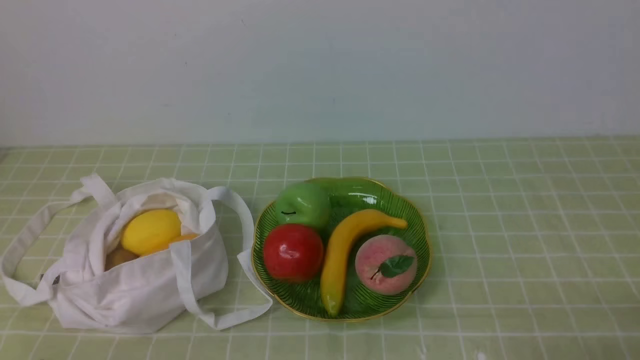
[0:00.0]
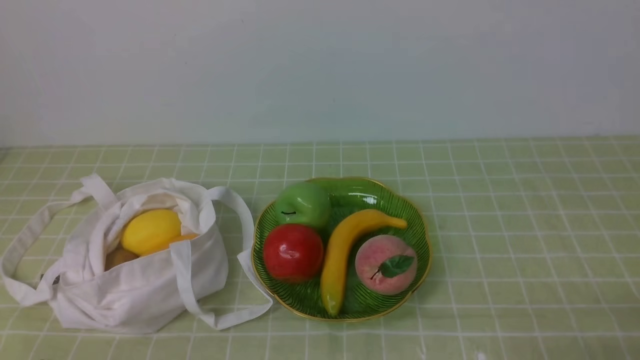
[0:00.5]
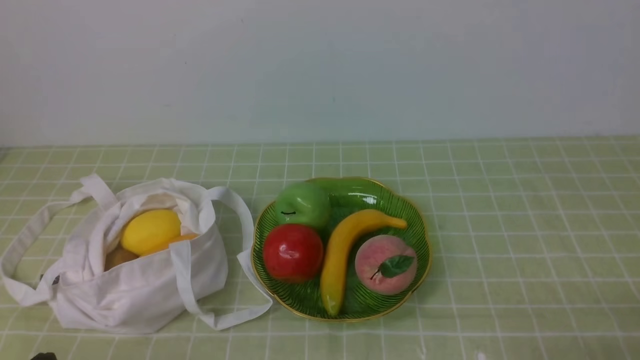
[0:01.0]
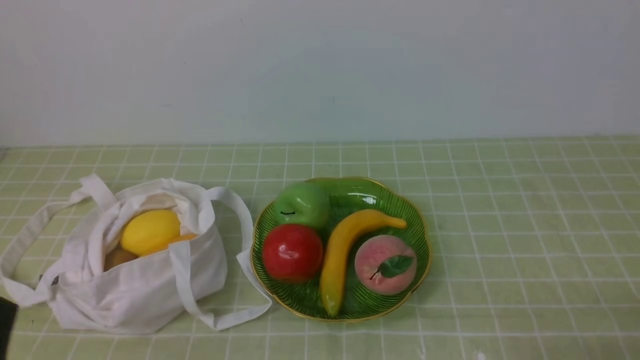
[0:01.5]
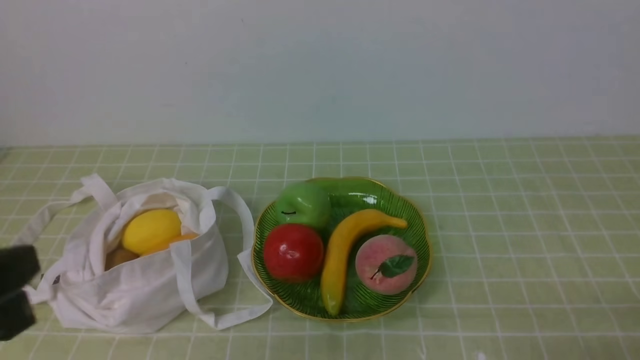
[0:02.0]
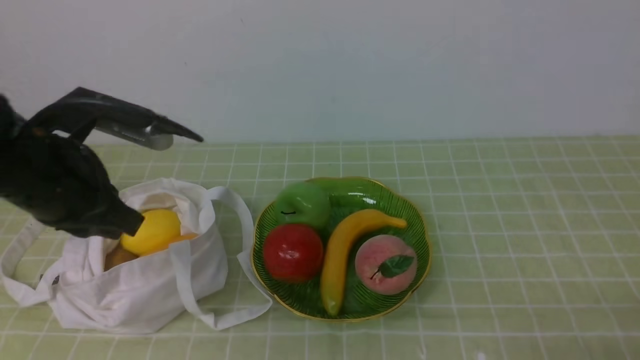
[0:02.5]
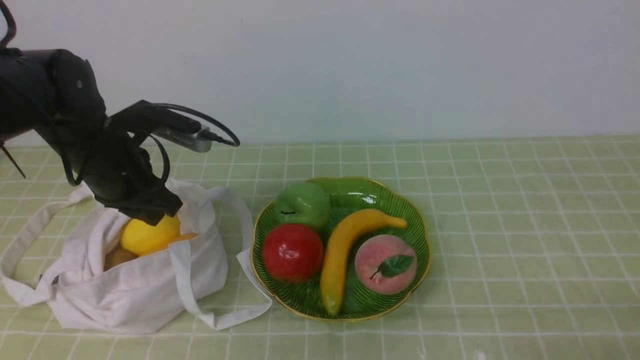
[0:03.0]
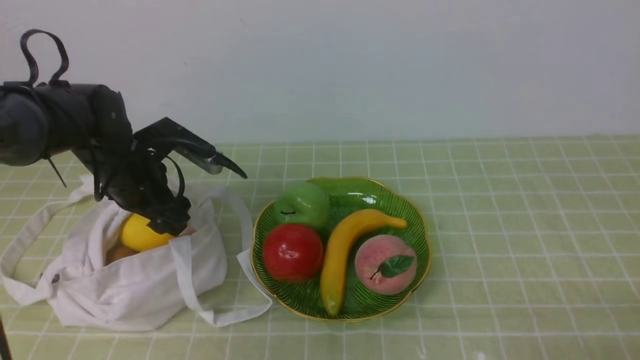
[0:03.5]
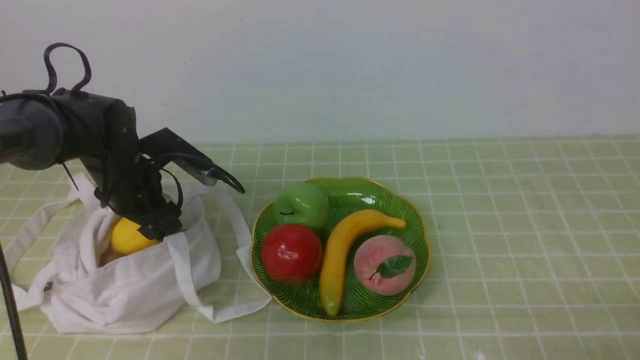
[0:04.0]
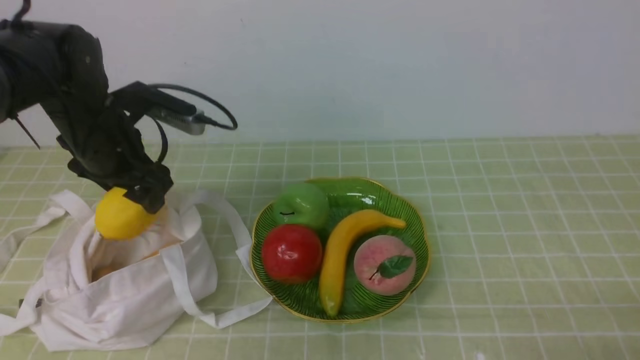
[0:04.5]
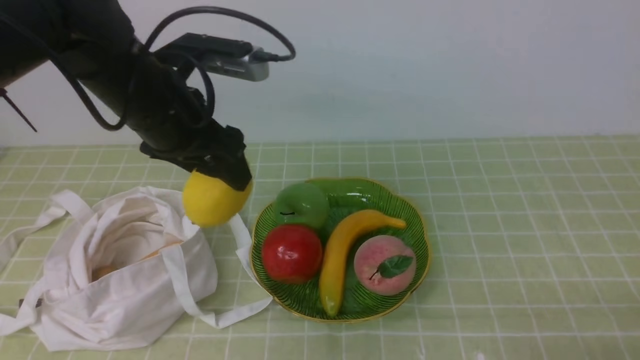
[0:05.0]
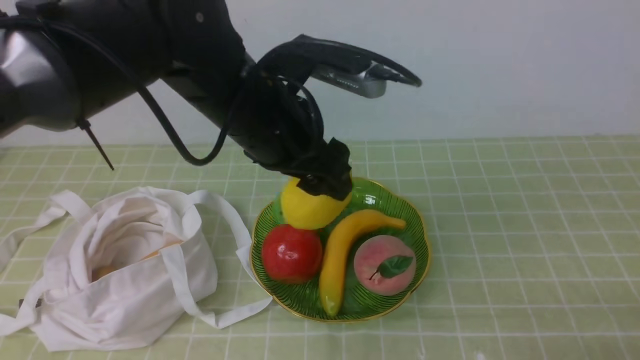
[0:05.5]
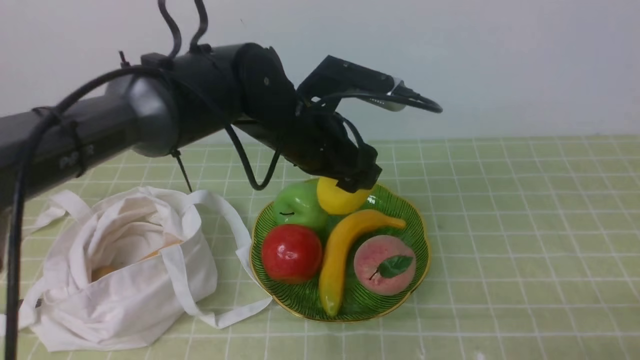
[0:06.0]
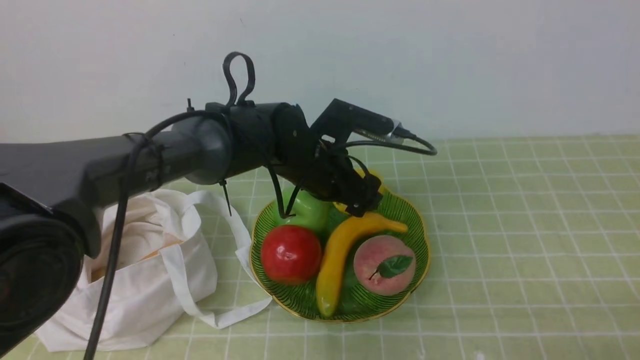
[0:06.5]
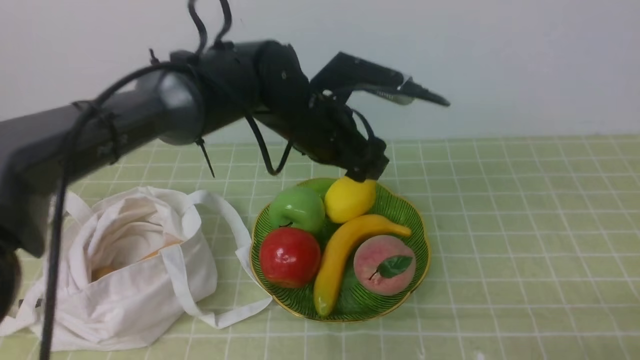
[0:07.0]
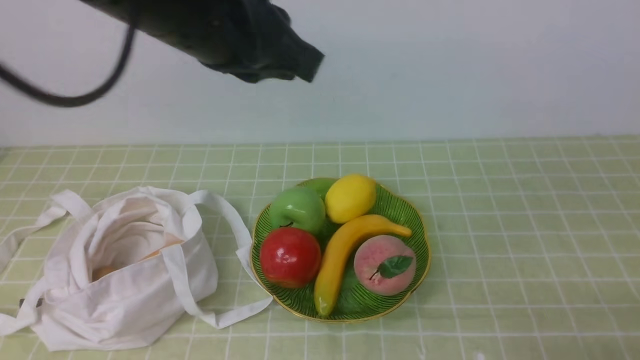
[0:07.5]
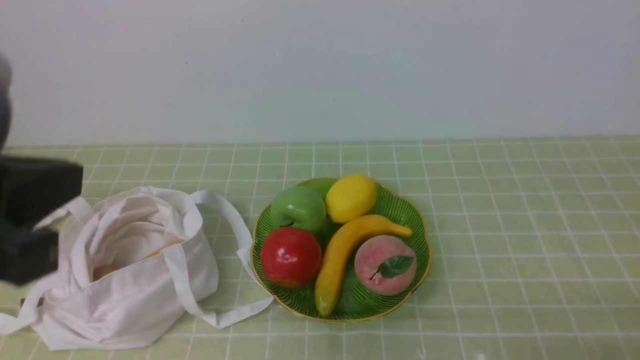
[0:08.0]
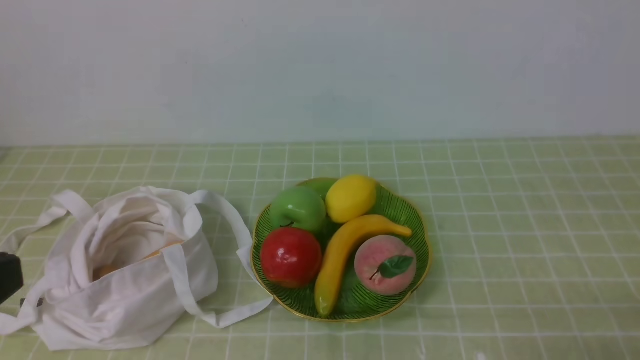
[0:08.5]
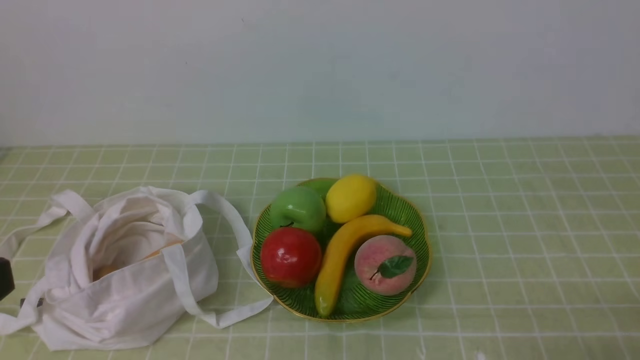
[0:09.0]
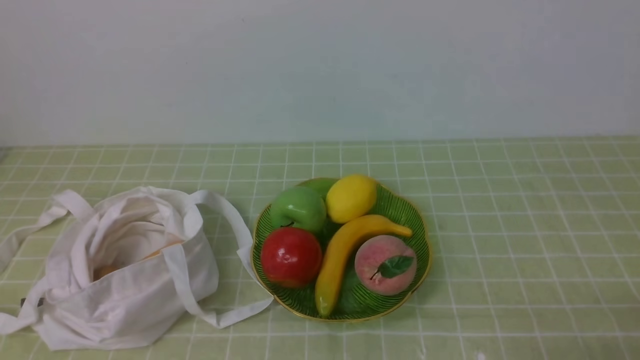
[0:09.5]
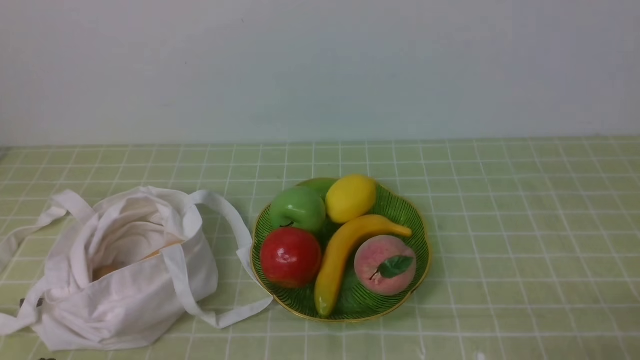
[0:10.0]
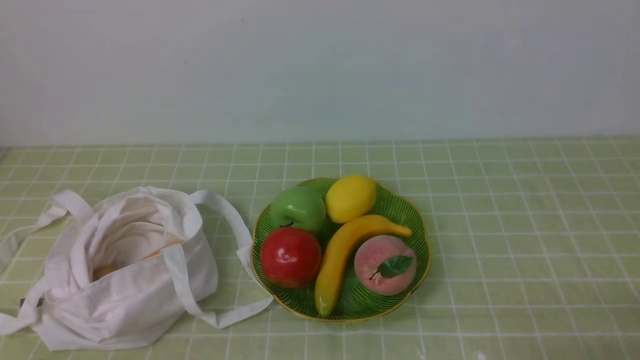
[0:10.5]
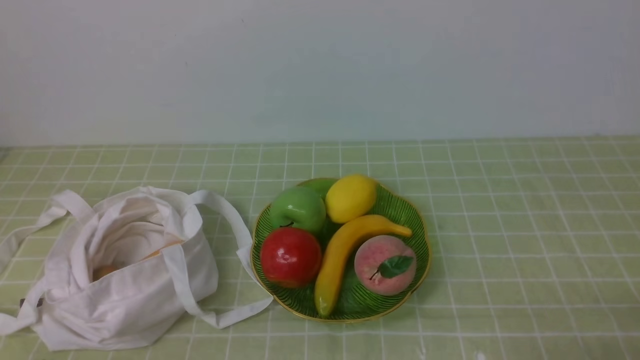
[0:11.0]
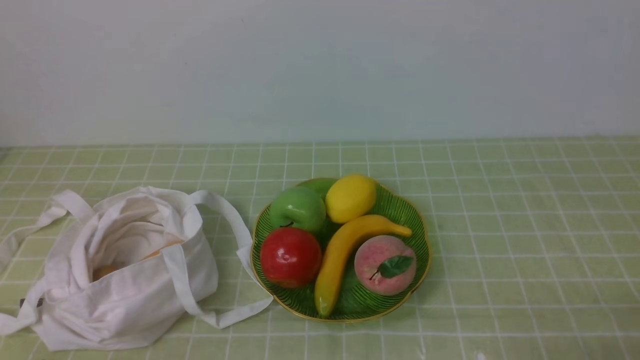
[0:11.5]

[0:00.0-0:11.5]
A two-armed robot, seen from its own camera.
Step, 0:00.0 to 0:04.0: use the left arm to grab a lemon from the bag.
Step, 0:04.5 to 0:06.5: use the left arm to put the lemon into the empty plate on the right.
0:02.0 to 0:04.0: The left gripper goes about 35 cm forward and downward, and opens up.
0:04.0 to 0:06.0: The left gripper heads to the right and upward, covering roughly 25 cm.
0:06.0 to 0:07.5: The left gripper goes approximately 15 cm upward and backward, and closes its fingers.
0:07.5 to 0:09.5: The left gripper travels backward and to the left by approximately 30 cm.
